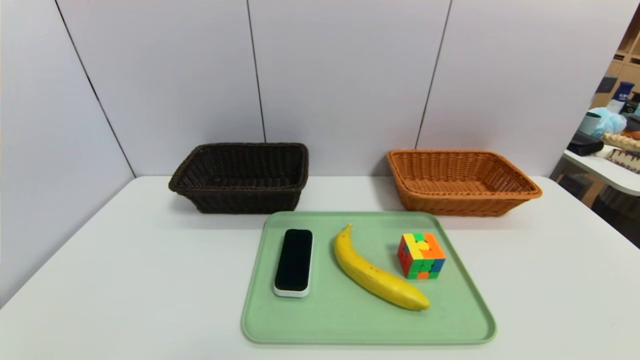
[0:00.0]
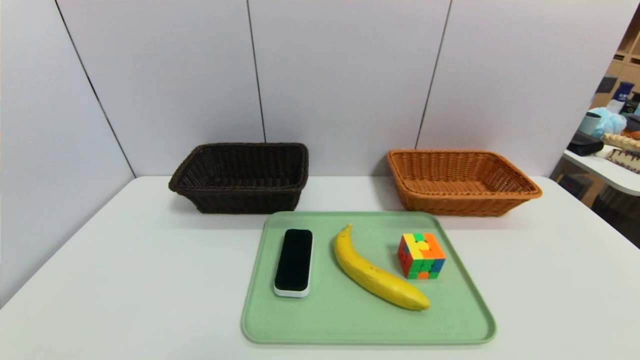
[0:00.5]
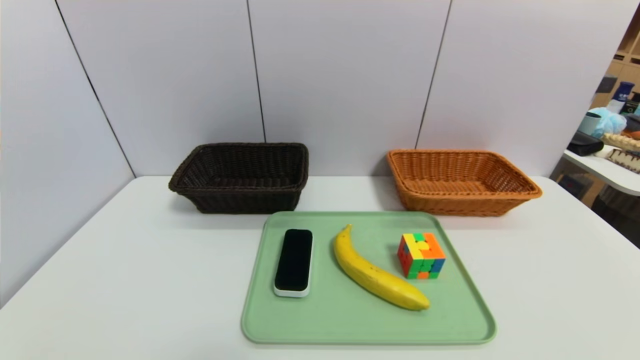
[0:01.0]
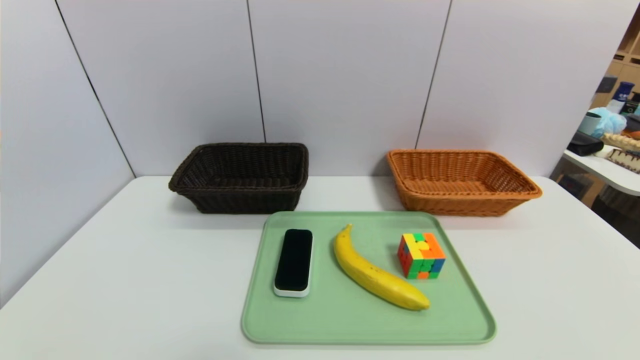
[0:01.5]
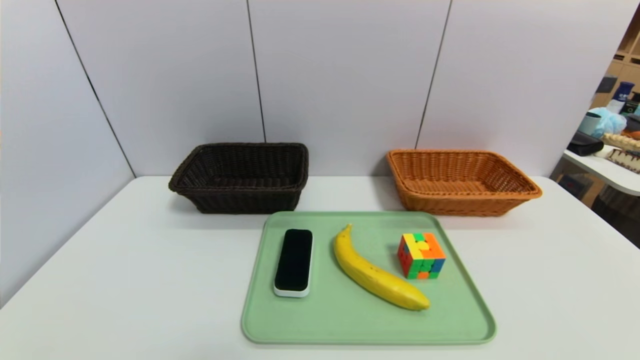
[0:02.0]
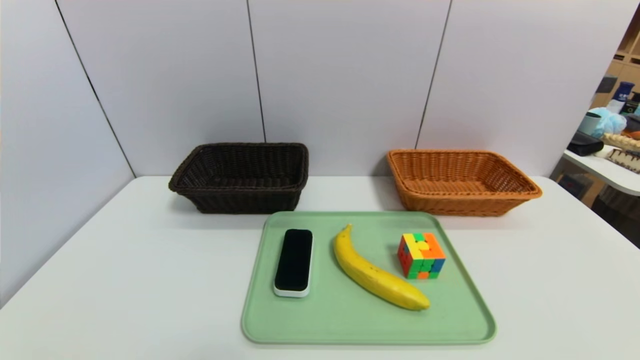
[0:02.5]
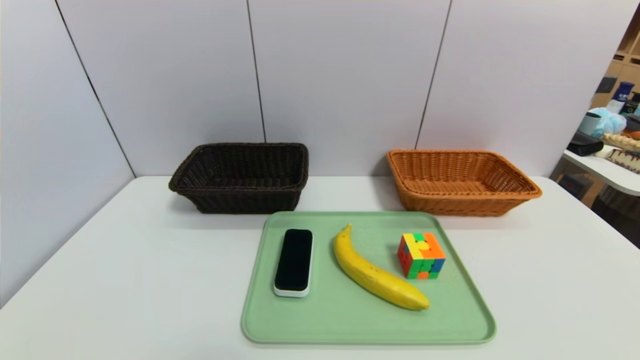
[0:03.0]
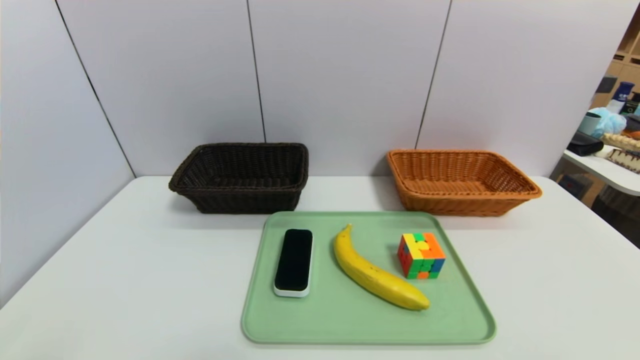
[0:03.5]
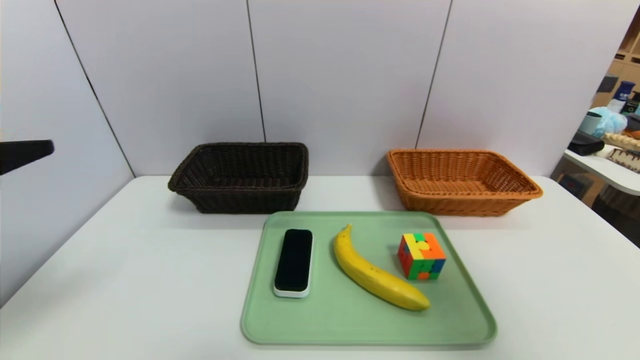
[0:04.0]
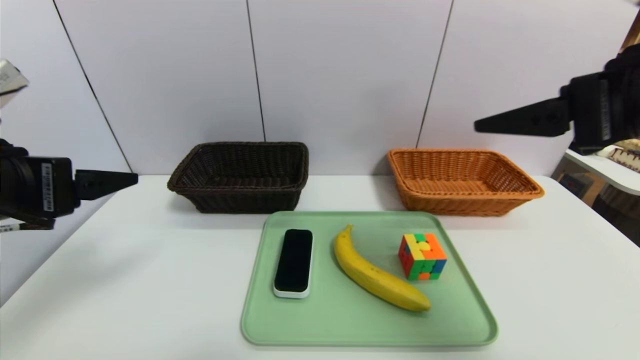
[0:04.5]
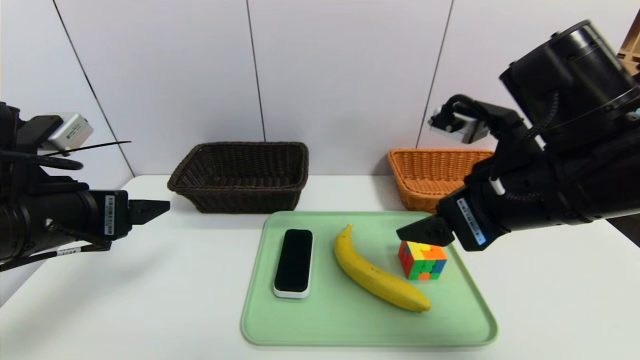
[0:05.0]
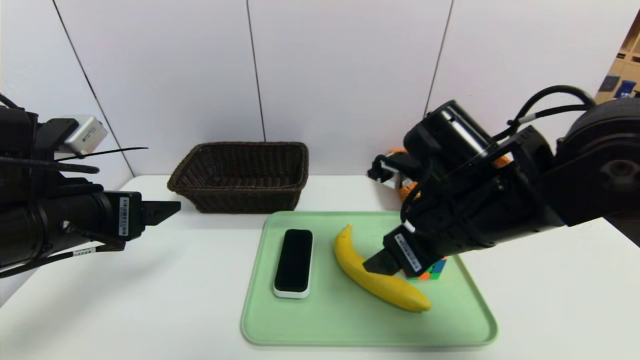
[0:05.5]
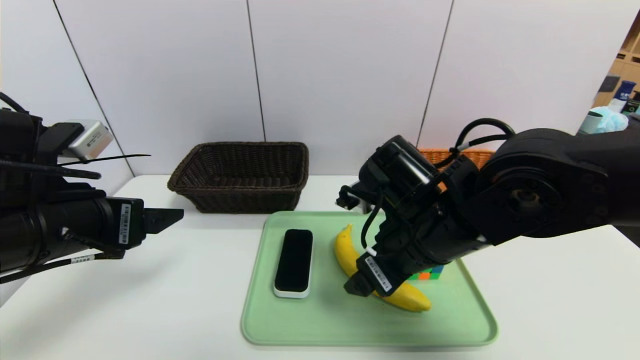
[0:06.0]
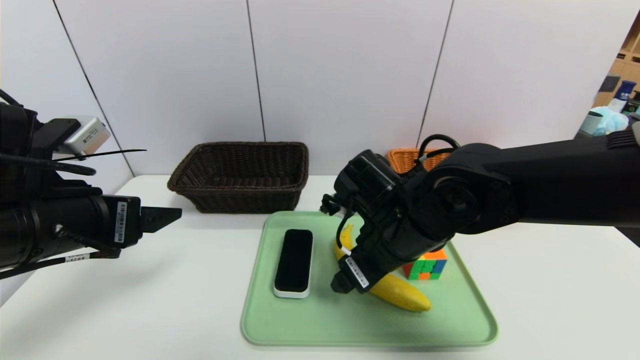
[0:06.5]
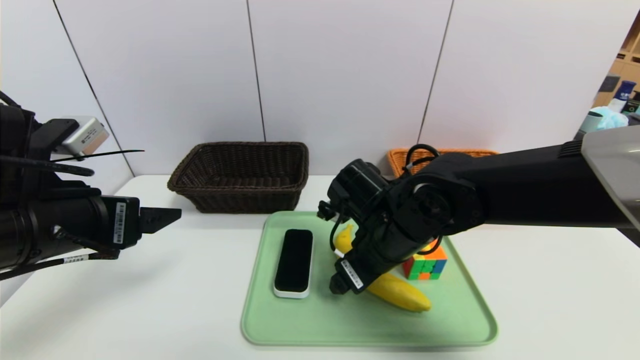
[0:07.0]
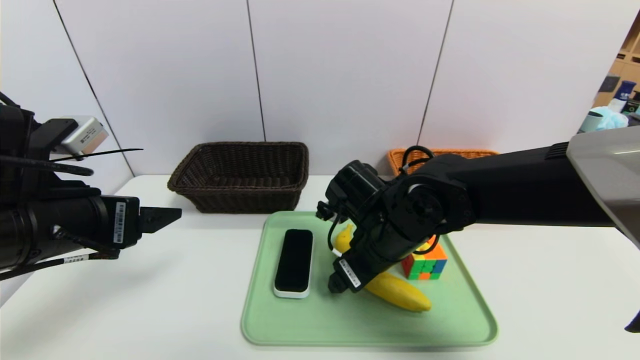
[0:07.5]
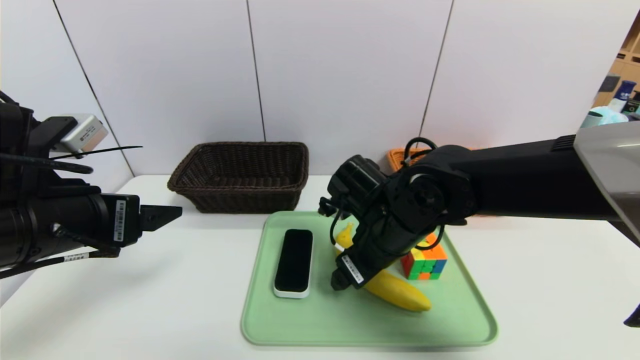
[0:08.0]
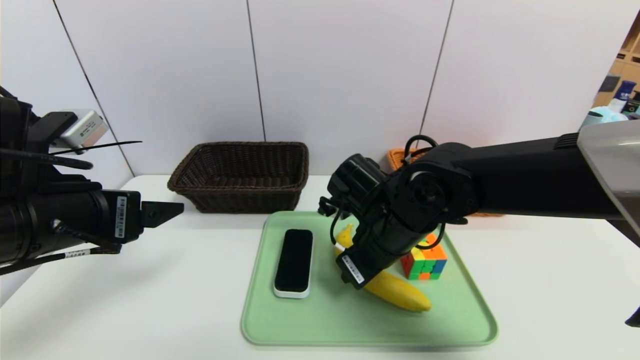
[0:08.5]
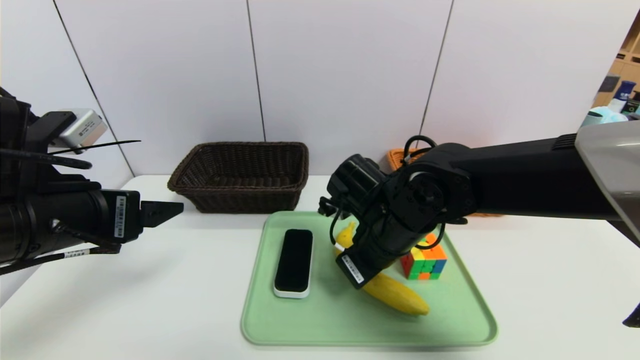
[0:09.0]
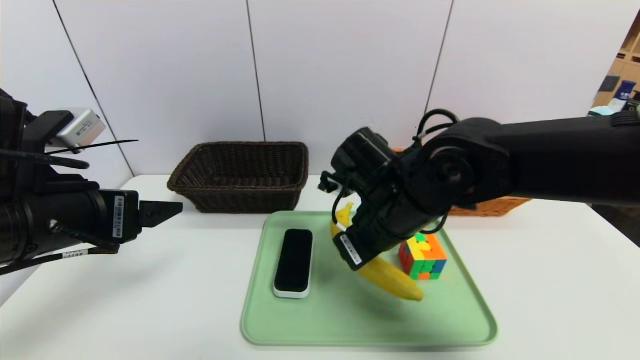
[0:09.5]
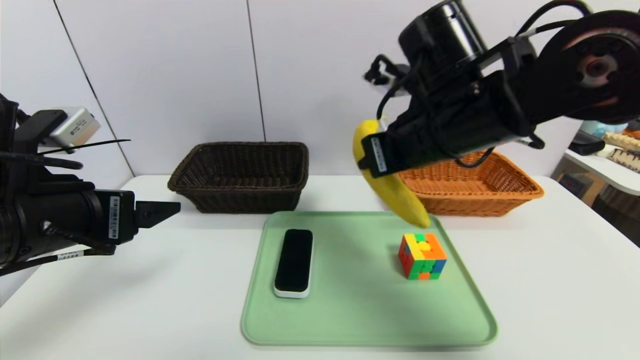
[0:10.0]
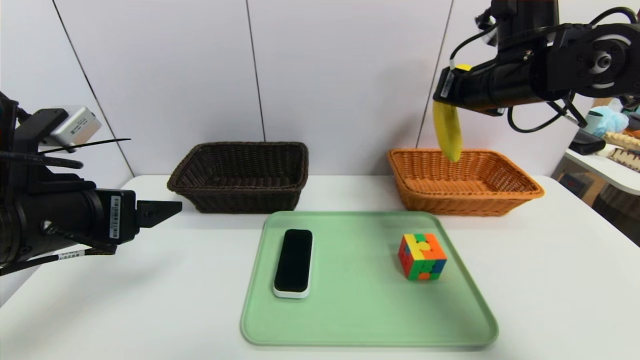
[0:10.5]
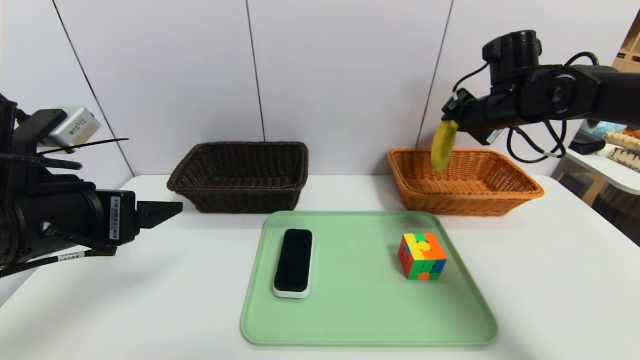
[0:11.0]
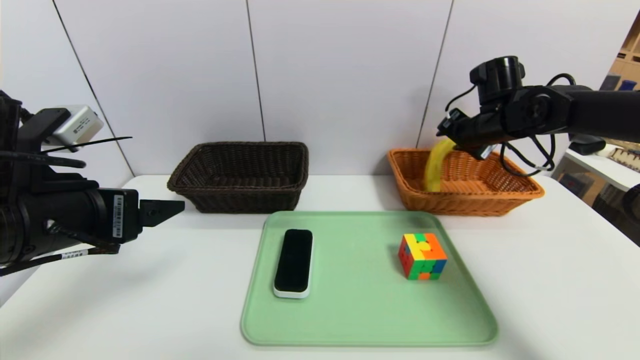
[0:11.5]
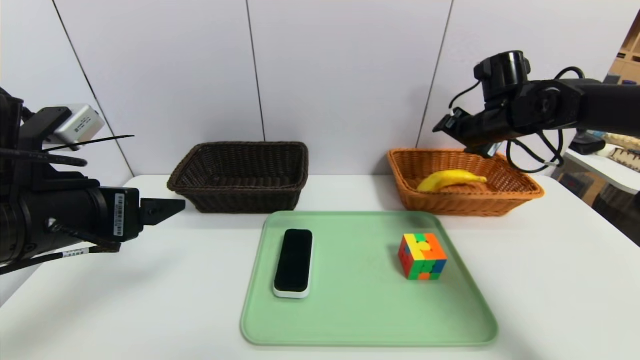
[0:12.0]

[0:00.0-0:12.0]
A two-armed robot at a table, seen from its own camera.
Task of the whole recording: place the food in the right basket with the right gripper, and place the non food items in the left basket with the left gripper.
Step, 0:00.0 to 0:11.5: Grasp the banana and put it in the right basket.
0:00.0 to 0:02.0: Both grippers stay put.
0:02.0 to 0:04.0: Both grippers travel together upward and forward, approximately 30 cm.
0:04.0 to 0:06.0: The left gripper heads downward, forward and to the right, covering about 10 cm, while the right gripper heads to the left, downward and forward, covering roughly 30 cm.
0:06.0 to 0:08.0: The right gripper shifts by some 5 cm.
0:08.0 to 0:10.0: The right gripper shifts approximately 15 cm upward, and closes up.
0:10.0 to 0:12.0: The right gripper moves to the right and forward, about 20 cm, and opens up.

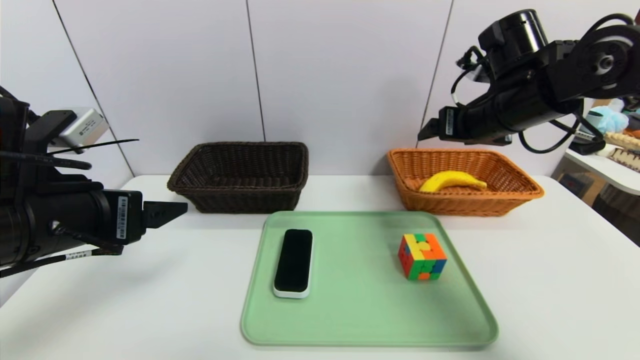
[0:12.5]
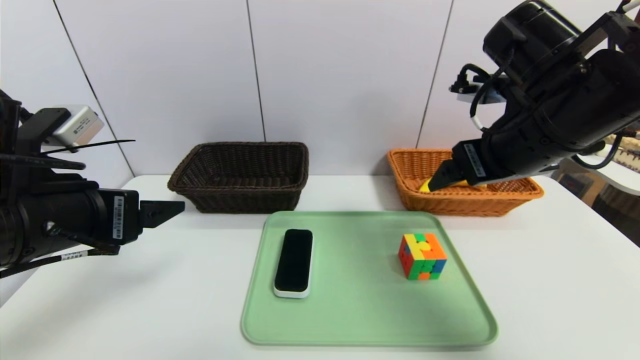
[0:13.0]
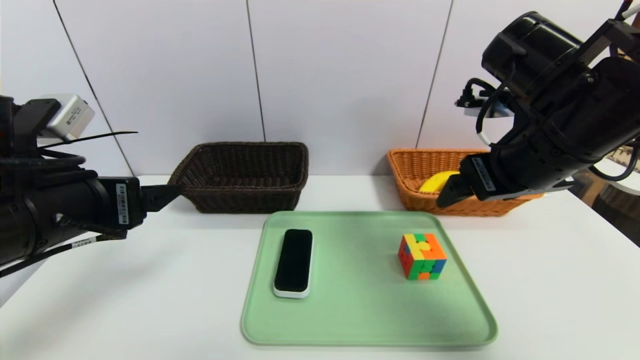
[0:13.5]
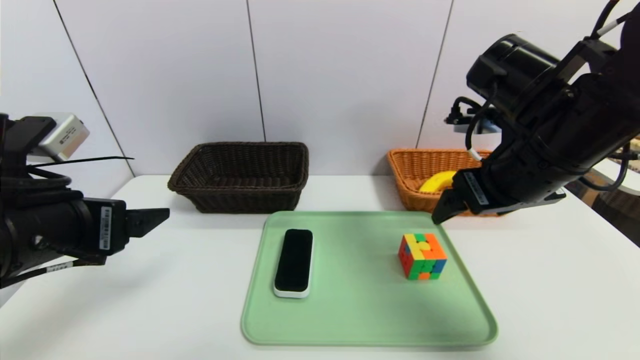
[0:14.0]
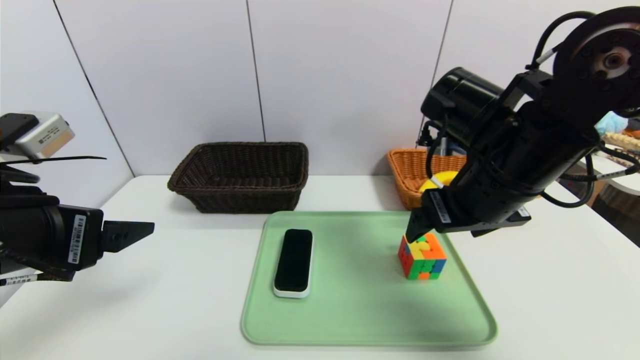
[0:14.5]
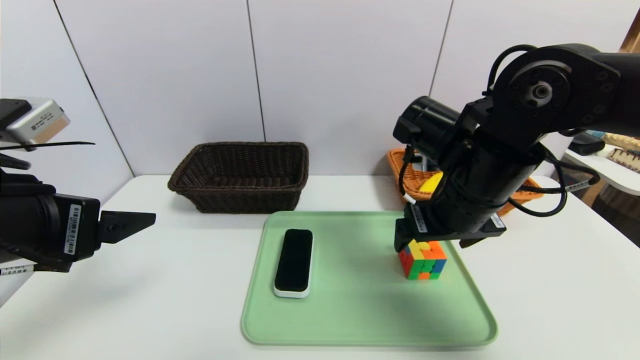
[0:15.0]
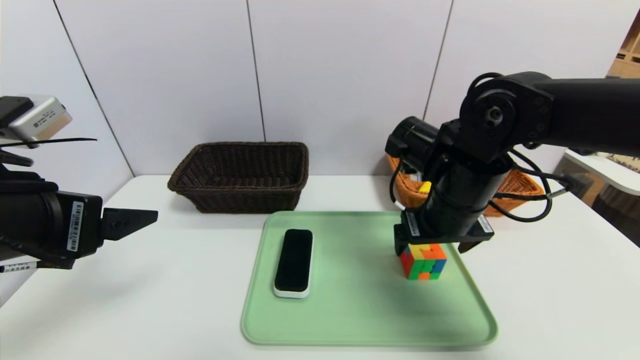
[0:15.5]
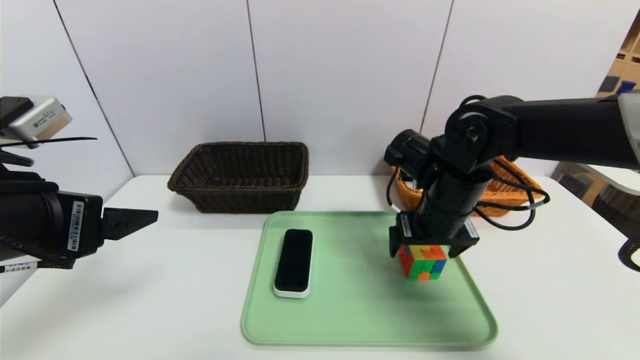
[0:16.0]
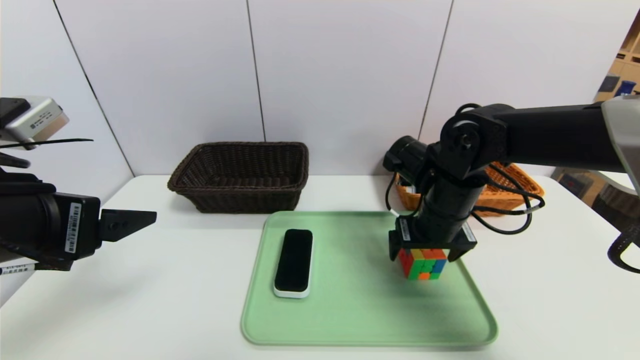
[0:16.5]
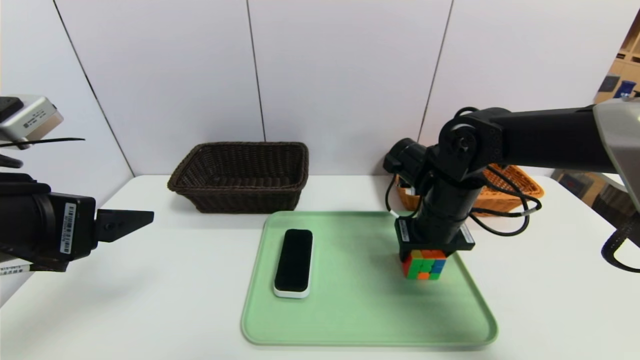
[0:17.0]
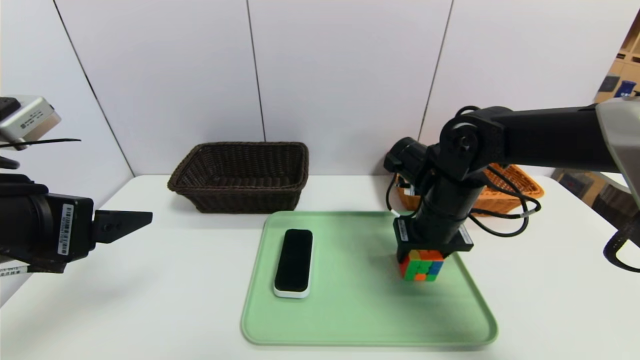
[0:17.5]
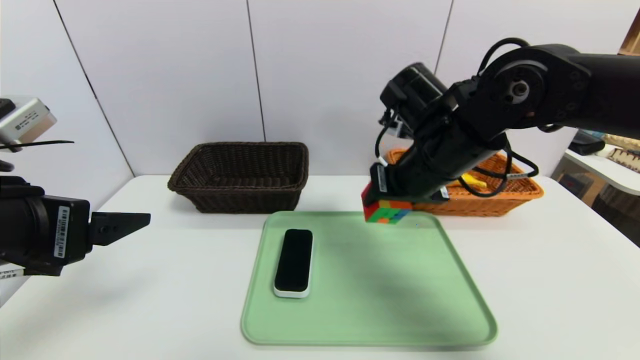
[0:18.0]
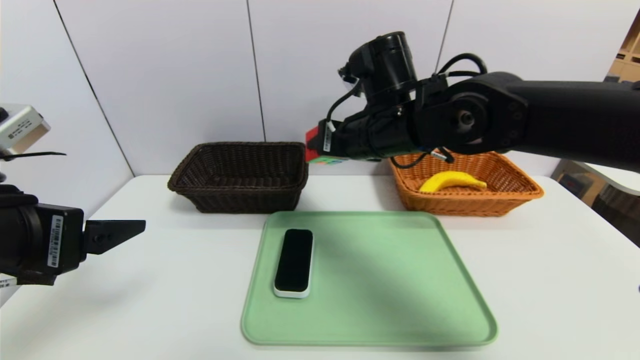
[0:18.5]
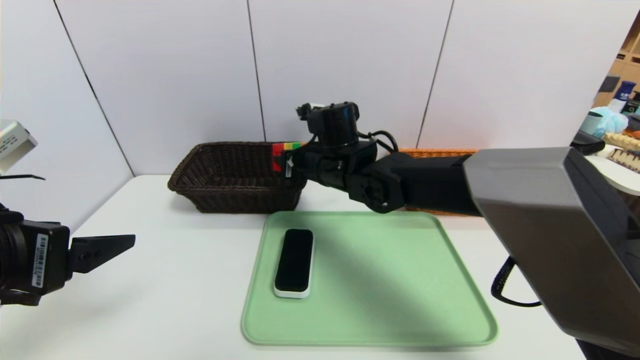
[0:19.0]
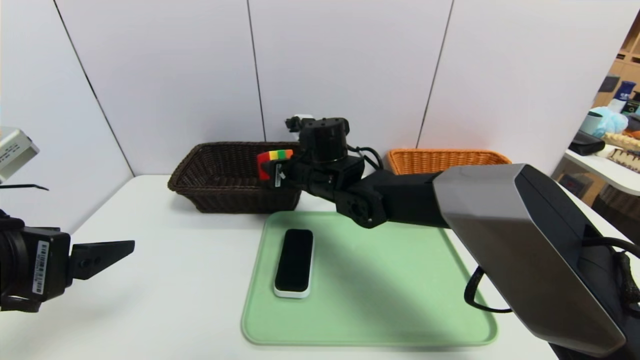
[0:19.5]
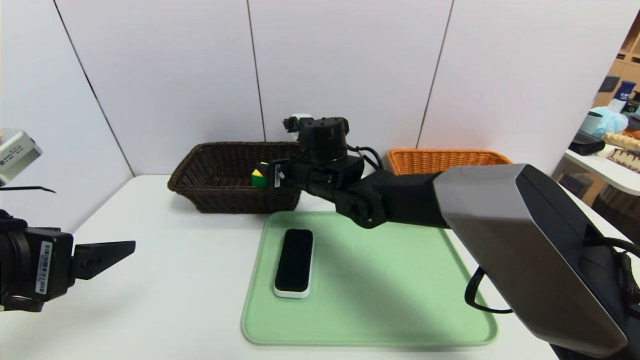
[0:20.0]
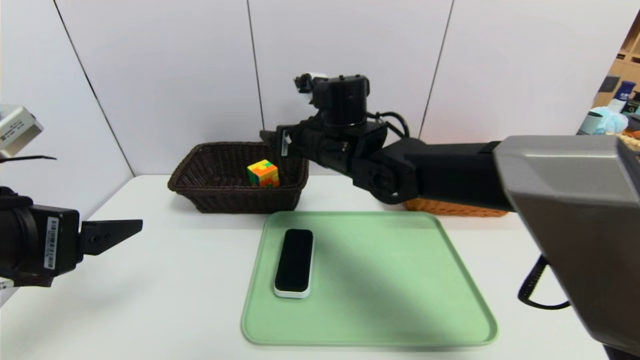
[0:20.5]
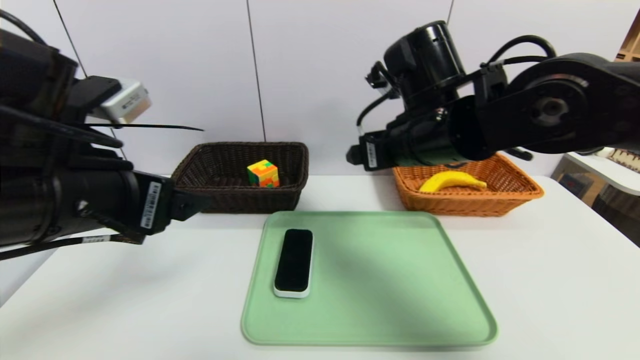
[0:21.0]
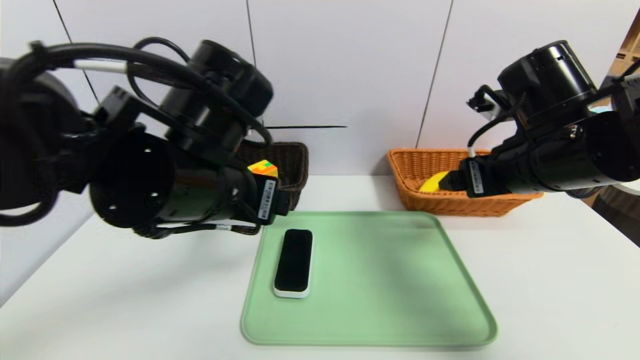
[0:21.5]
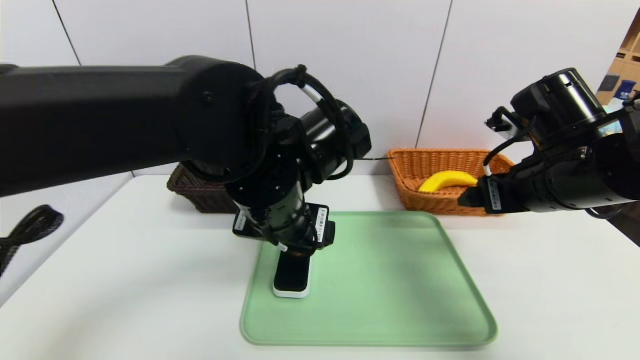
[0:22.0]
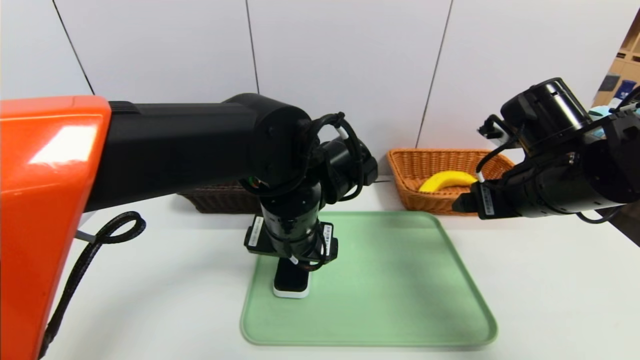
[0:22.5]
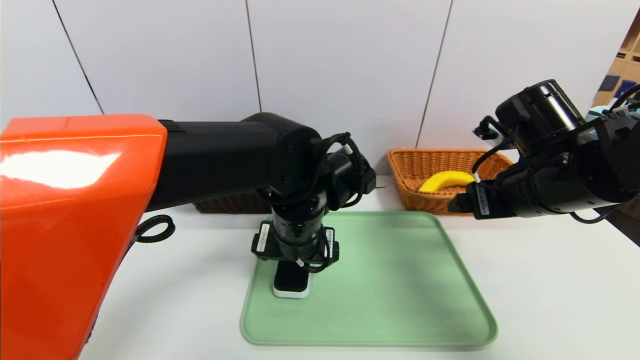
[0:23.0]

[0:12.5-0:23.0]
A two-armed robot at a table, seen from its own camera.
Task of the whole recording: place the food in the right basket with the right gripper, and place the non food items in the left basket with the left gripper.
Step, 0:12.5 to 0:20.0: Grasp the rubiks cube and put it in the left basket.
0:12.5 to 0:14.5: The right gripper goes some 10 cm backward and to the left.
0:14.5 to 0:16.5: The right gripper goes about 10 cm downward and forward.
0:16.5 to 0:19.0: The right gripper moves to the left and forward, about 15 cm, and closes.
0:19.0 to 0:21.0: The right gripper is displaced to the right, backward and upward by some 15 cm, and opens its fingers. Meanwhile the left gripper goes roughly 10 cm to the right and forward.
0:21.0 to 0:23.0: The right gripper heads to the right, covering roughly 10 cm. Meanwhile the left gripper travels to the right, downward and forward by some 20 cm.
